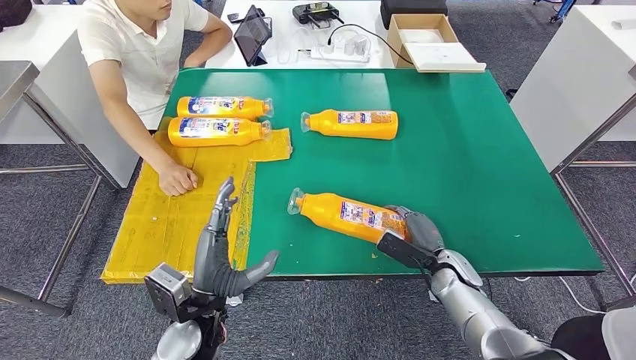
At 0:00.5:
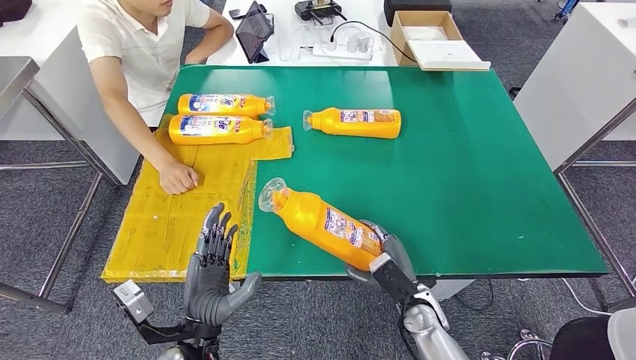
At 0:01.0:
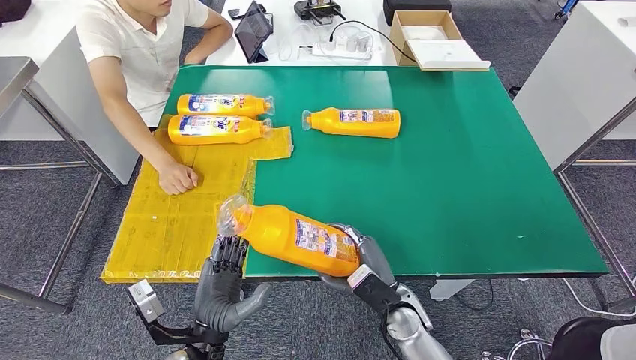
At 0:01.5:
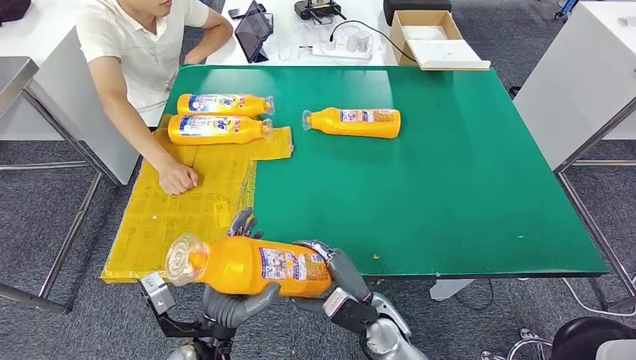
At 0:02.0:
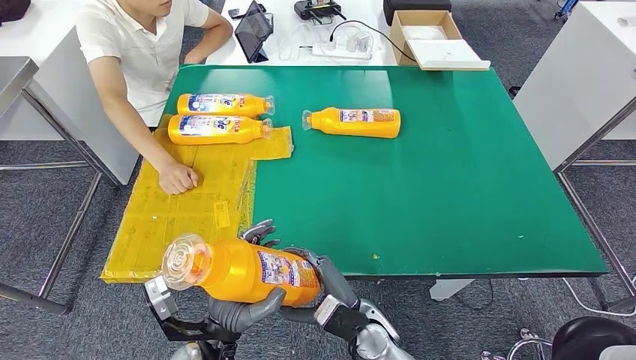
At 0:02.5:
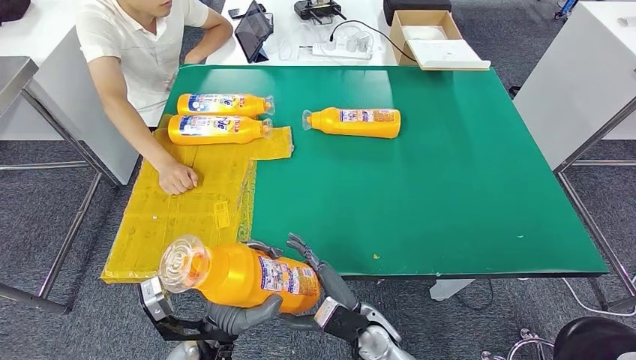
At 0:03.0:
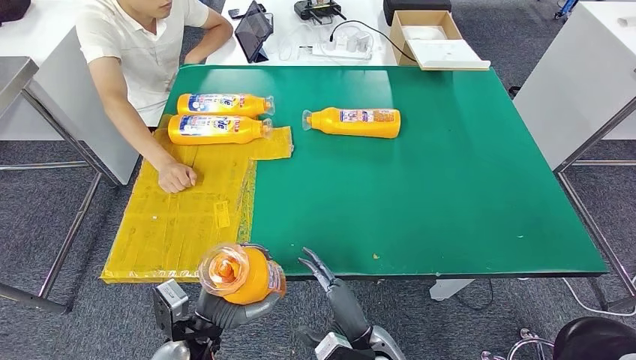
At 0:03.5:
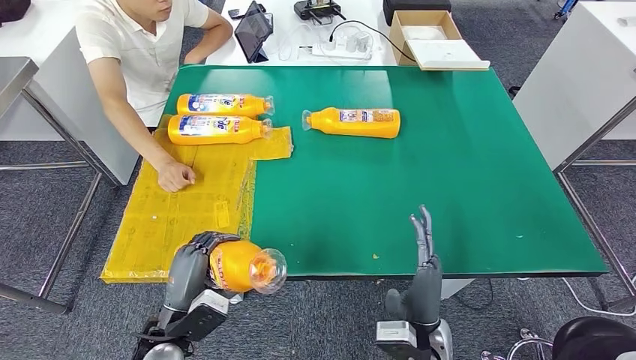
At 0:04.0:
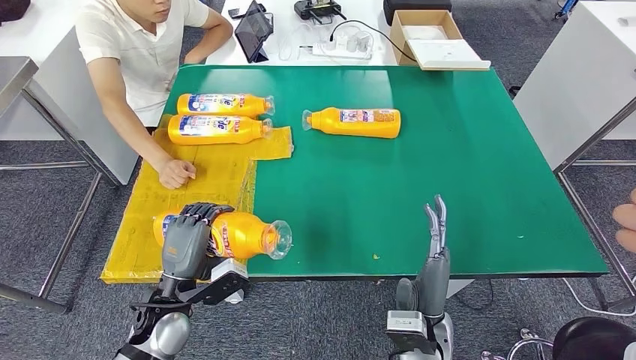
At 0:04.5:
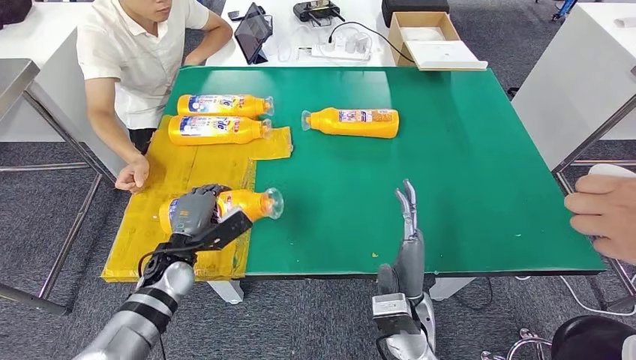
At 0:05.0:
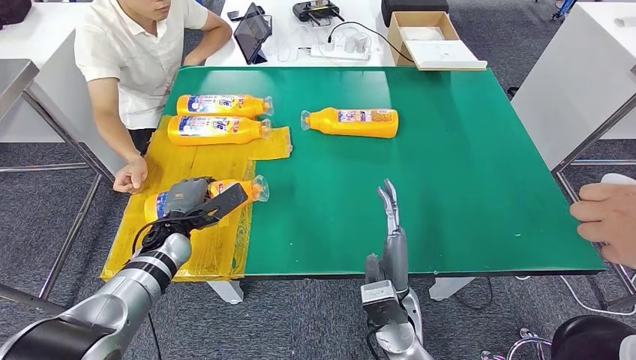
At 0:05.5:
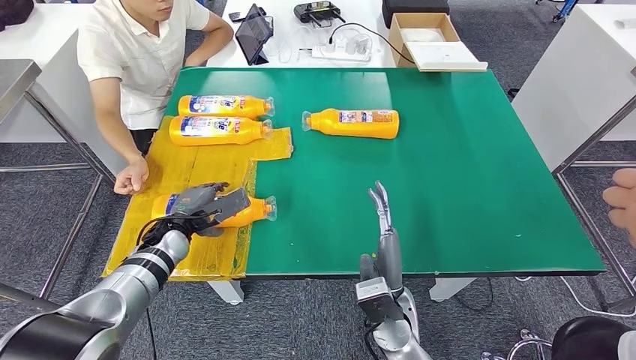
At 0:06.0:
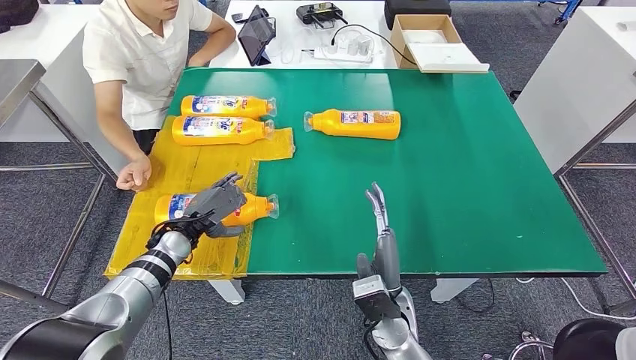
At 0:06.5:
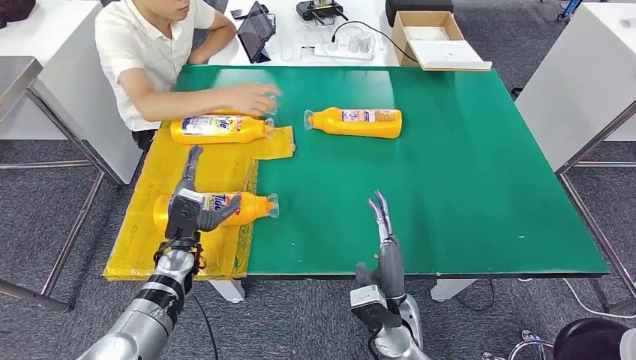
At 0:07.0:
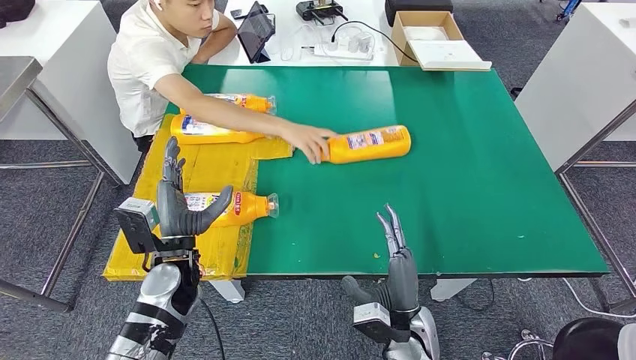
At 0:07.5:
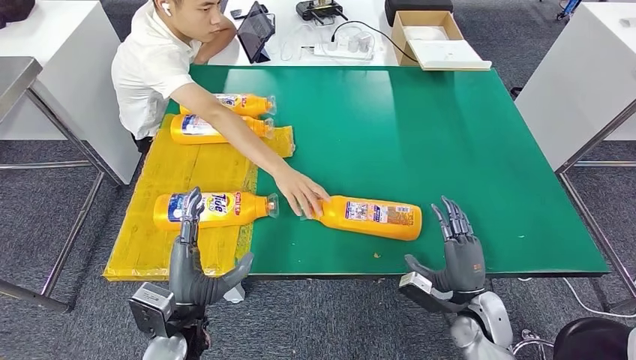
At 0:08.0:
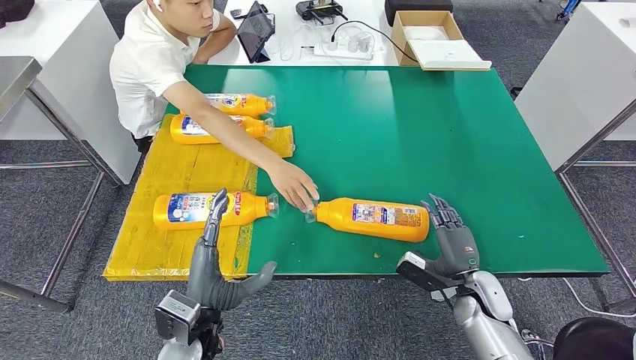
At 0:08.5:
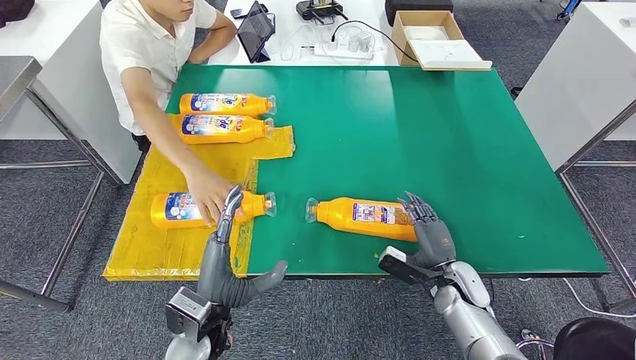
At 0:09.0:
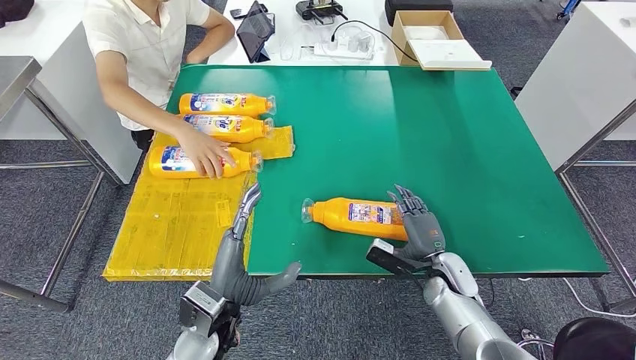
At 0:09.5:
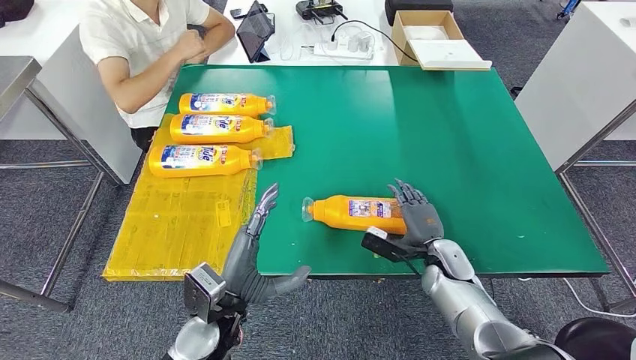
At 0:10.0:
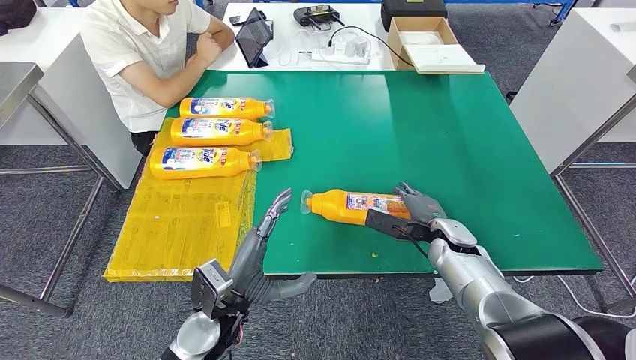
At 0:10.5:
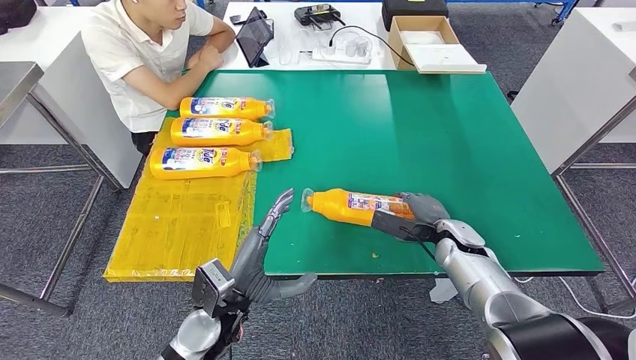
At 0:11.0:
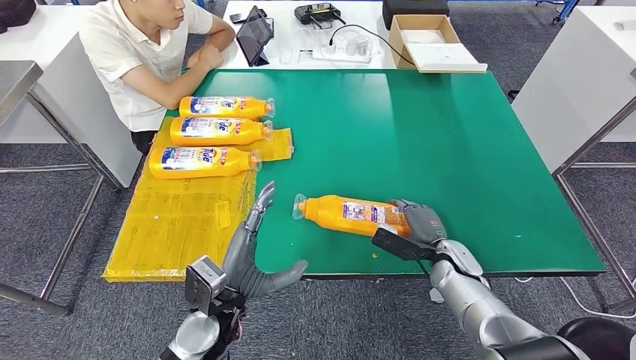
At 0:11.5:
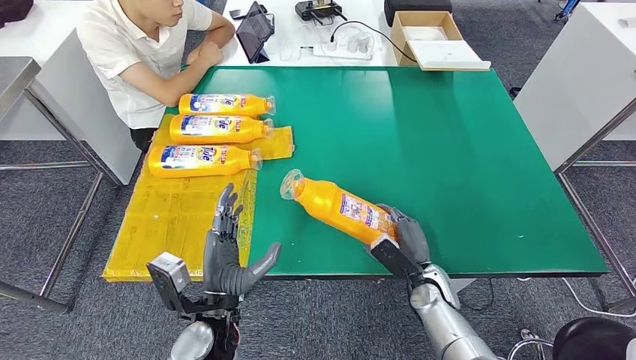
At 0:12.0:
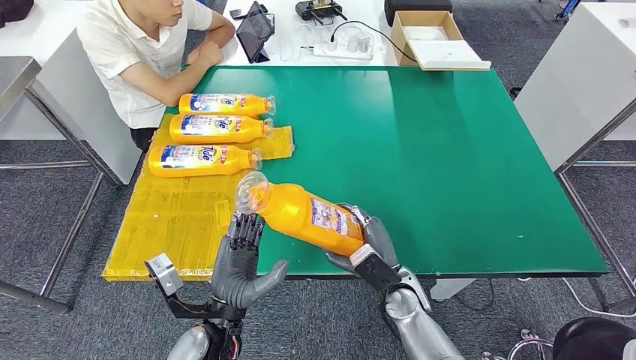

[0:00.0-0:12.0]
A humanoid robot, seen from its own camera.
Step, 0:01.5 to 0:04.0: Flip the fast-moving consumer goods bottle to the front side.
0:02.0 to 0:04.0: The right hand shifts approximately 10 cm to the right and upward. The left hand goes roughly 10 cm to the left and forward.

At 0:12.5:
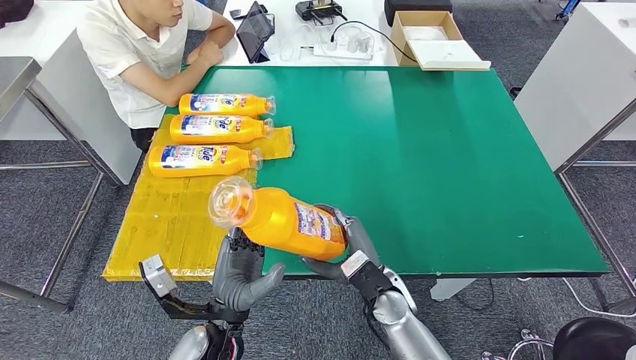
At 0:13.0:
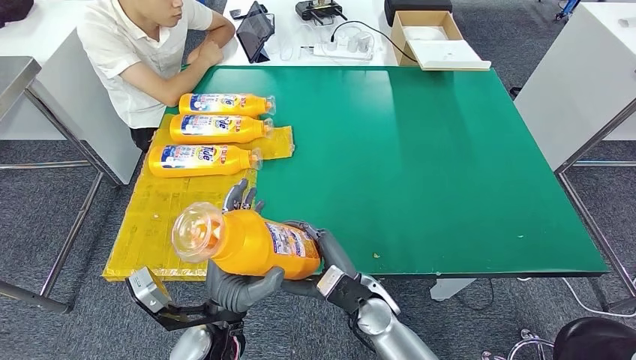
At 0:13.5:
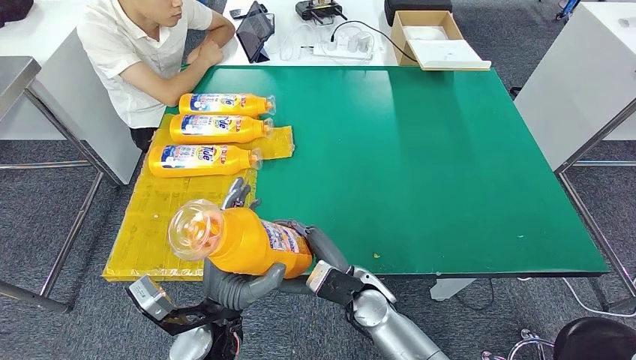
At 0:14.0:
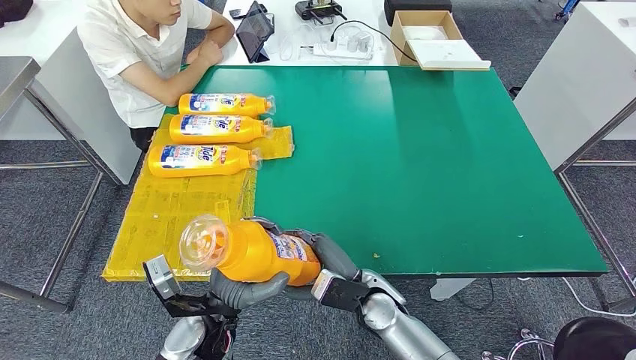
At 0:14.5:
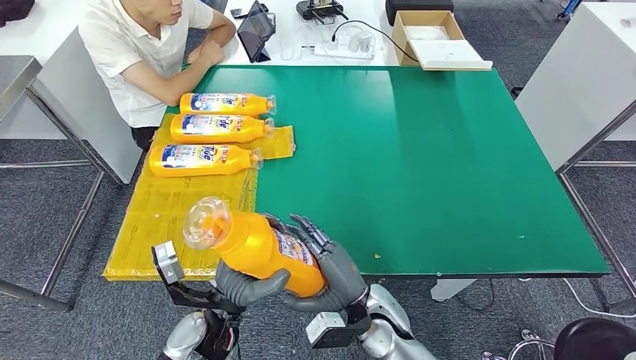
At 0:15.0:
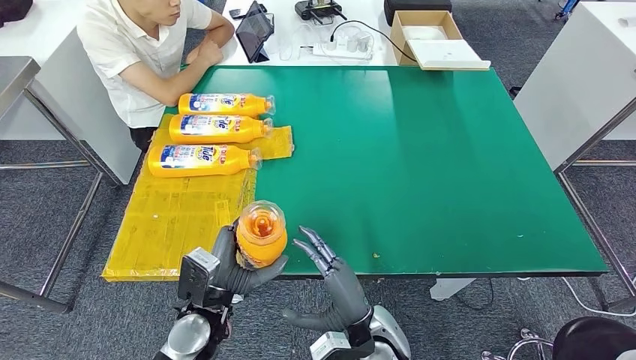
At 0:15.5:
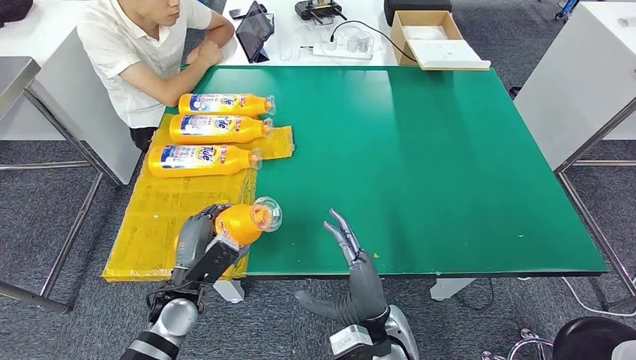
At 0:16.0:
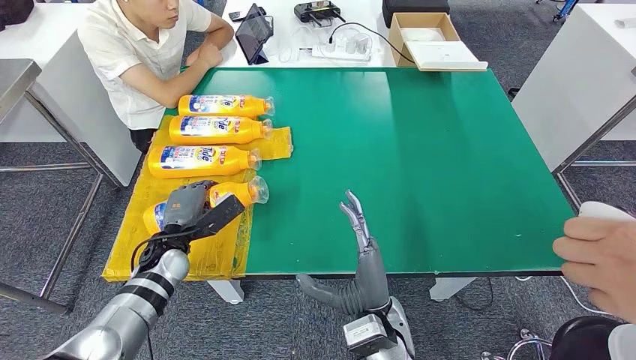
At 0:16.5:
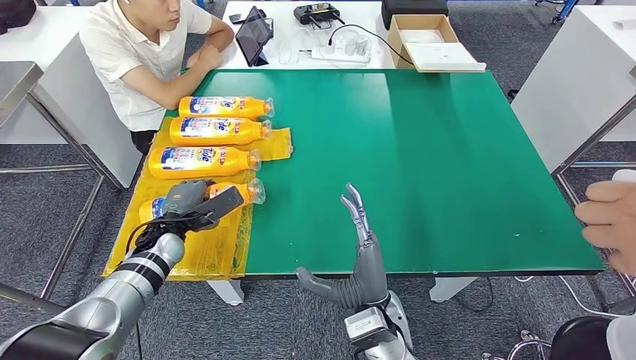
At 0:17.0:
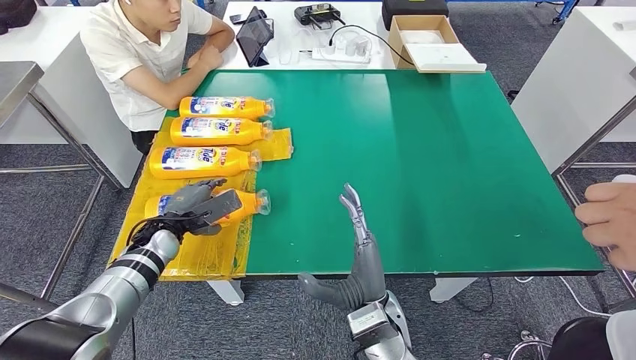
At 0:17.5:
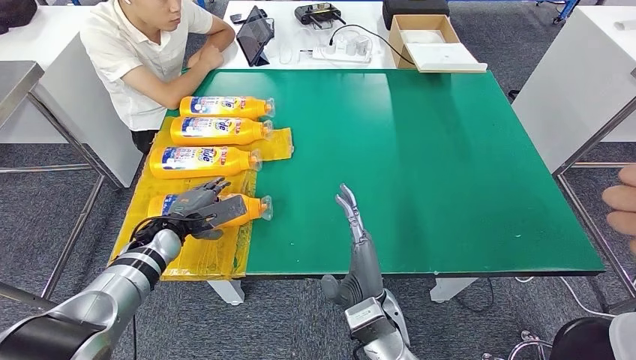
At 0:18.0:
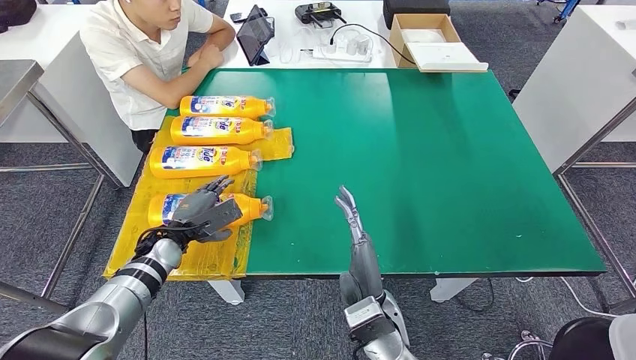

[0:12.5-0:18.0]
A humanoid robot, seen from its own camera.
Step, 0:13.5 to 0:18.0: Flip the fast-moving consumer goods bottle to the front side.

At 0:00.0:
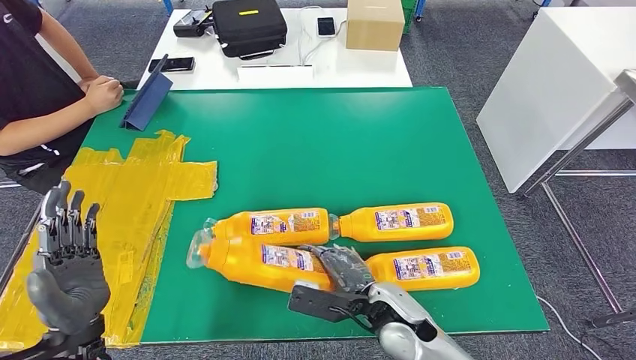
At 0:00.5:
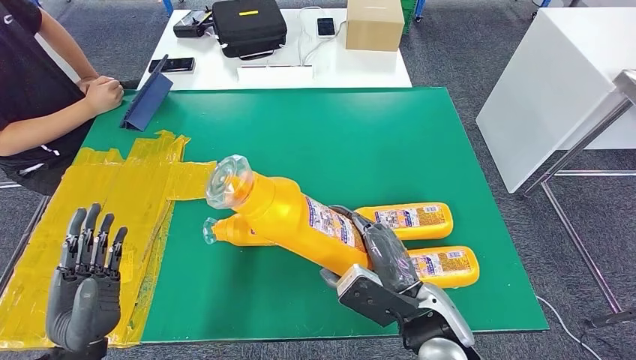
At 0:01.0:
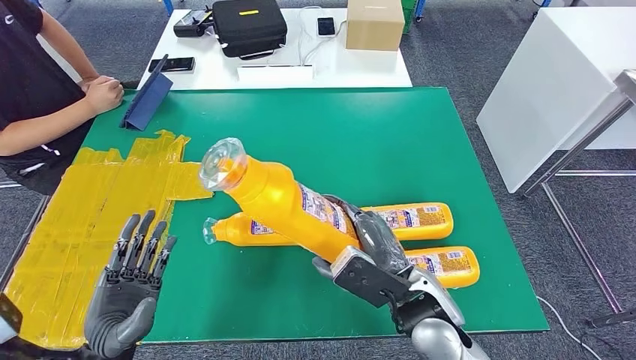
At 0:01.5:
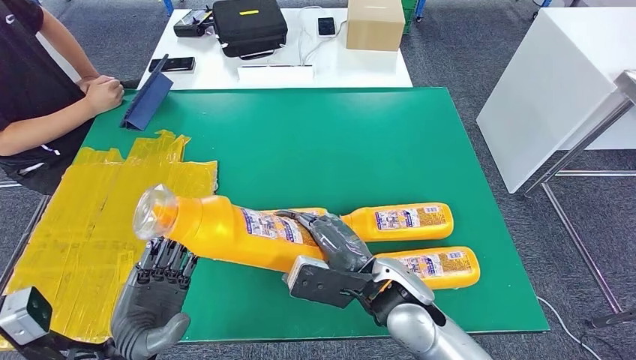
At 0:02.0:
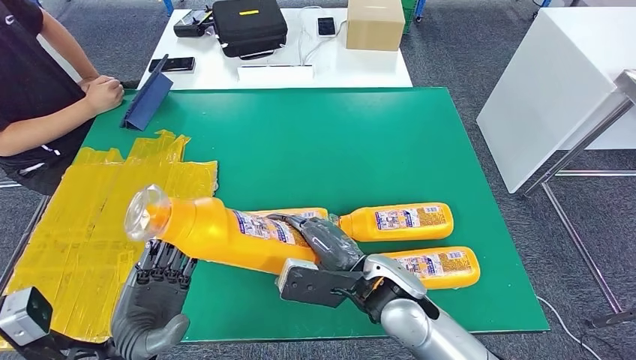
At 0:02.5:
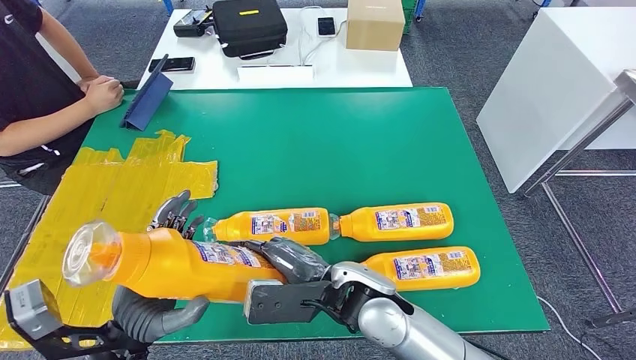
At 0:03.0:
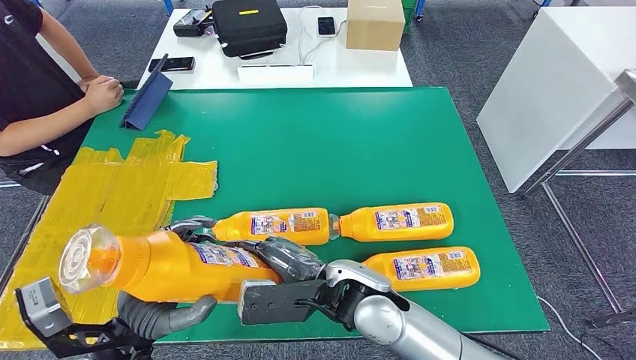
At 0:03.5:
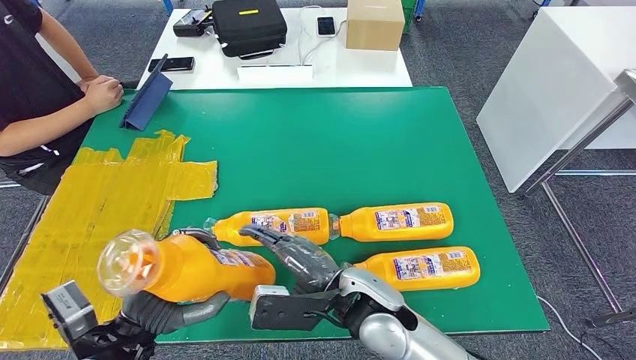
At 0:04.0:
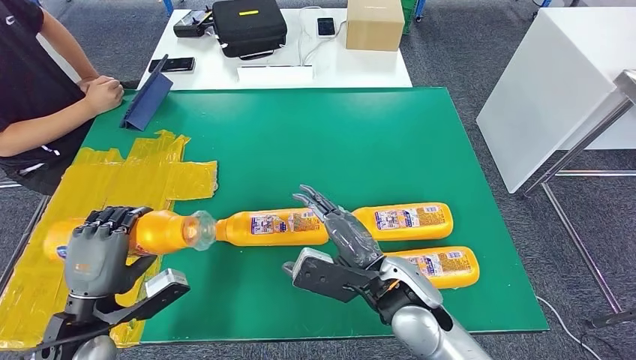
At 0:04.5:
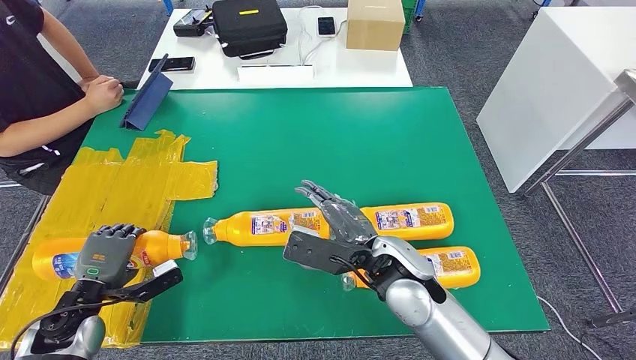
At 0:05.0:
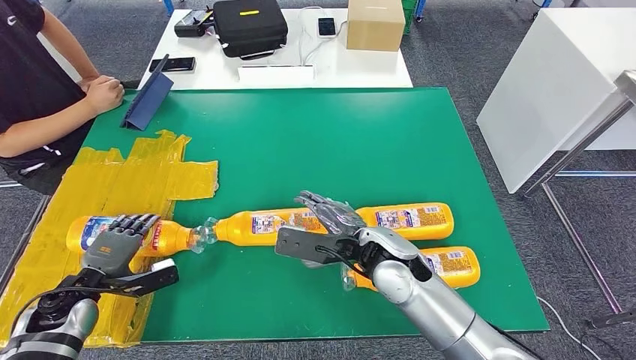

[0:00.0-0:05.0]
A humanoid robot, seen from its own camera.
0:00.0 to 0:02.5: The right hand heads upward and to the left, covering about 10 cm.
0:02.5 to 0:05.0: The right hand travels forward by about 5 cm, while the left hand shifts roughly 25 cm to the left, forward and downward.
